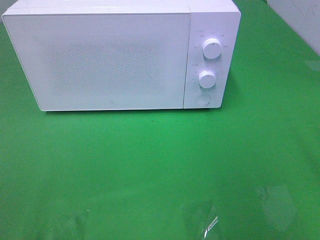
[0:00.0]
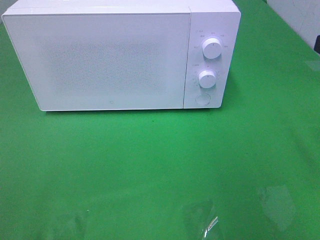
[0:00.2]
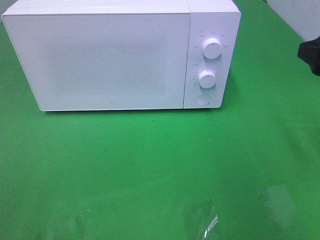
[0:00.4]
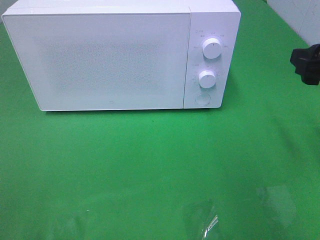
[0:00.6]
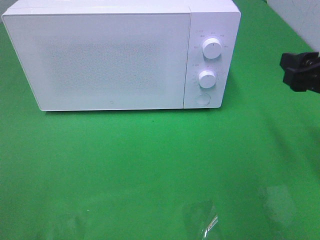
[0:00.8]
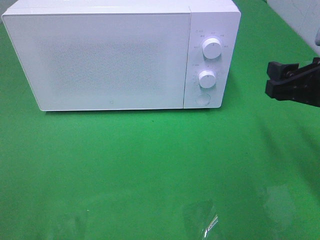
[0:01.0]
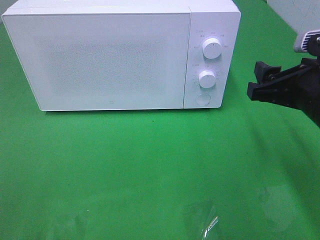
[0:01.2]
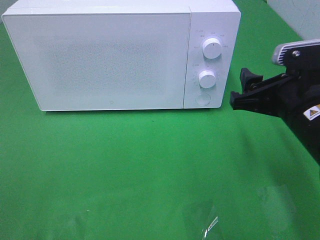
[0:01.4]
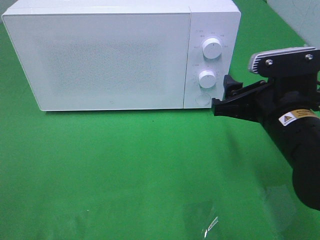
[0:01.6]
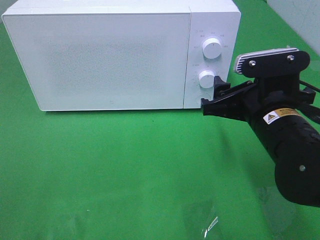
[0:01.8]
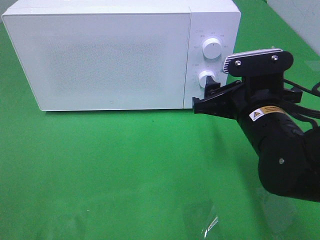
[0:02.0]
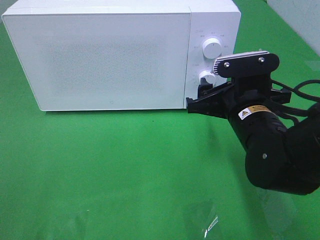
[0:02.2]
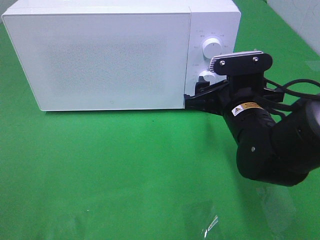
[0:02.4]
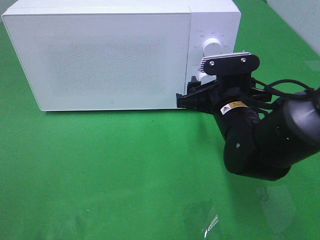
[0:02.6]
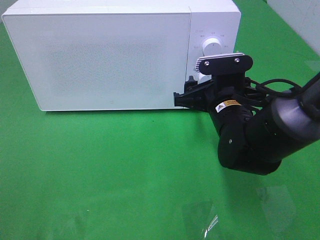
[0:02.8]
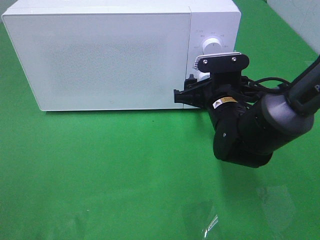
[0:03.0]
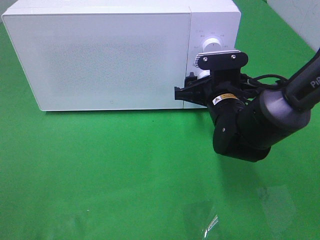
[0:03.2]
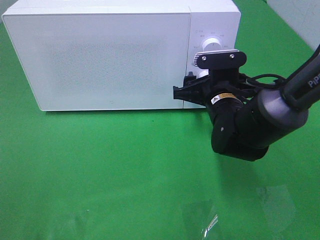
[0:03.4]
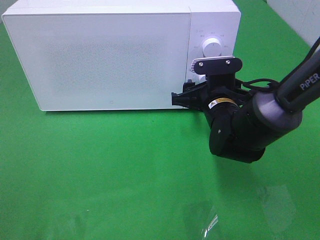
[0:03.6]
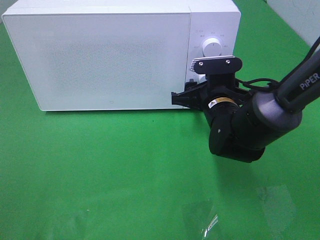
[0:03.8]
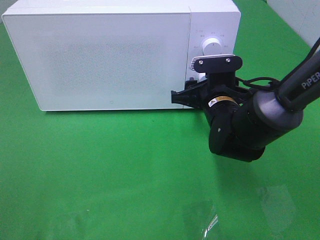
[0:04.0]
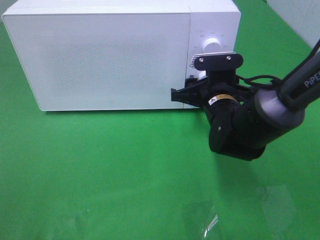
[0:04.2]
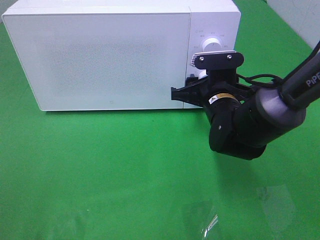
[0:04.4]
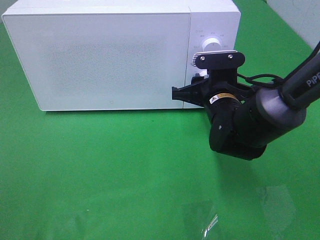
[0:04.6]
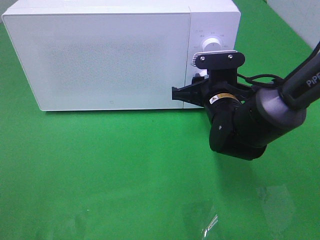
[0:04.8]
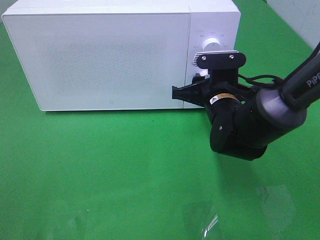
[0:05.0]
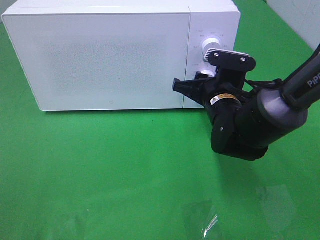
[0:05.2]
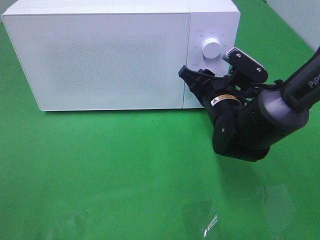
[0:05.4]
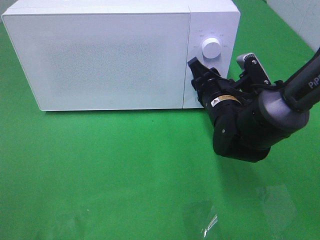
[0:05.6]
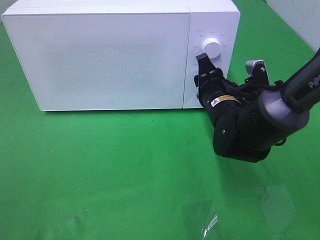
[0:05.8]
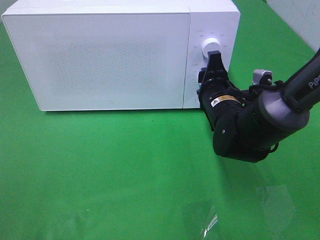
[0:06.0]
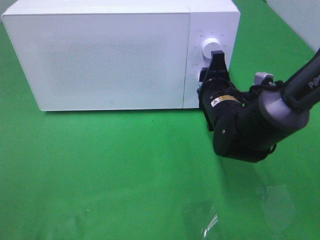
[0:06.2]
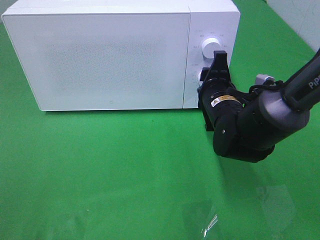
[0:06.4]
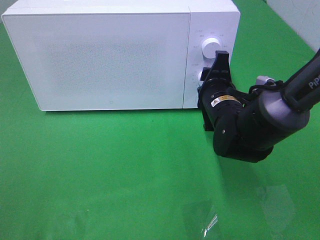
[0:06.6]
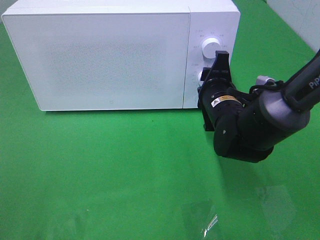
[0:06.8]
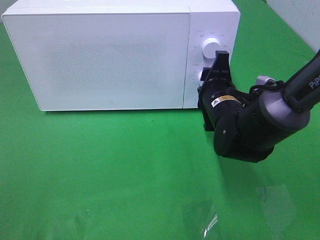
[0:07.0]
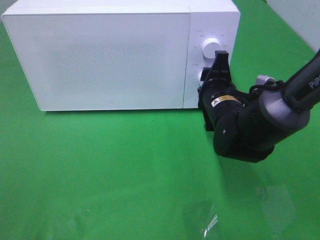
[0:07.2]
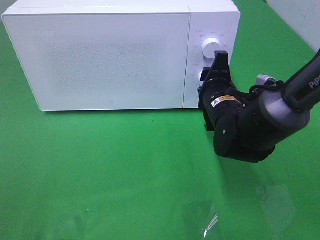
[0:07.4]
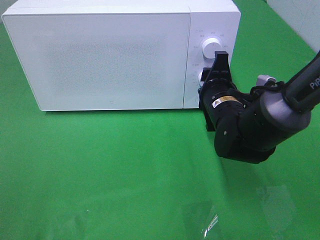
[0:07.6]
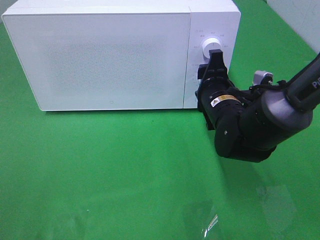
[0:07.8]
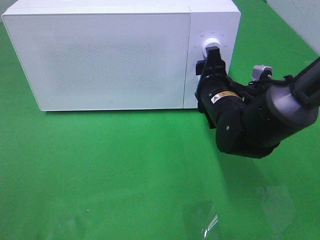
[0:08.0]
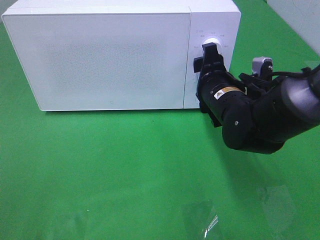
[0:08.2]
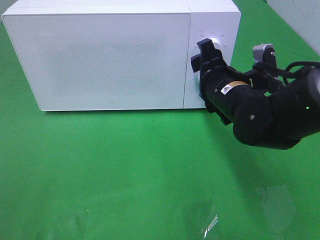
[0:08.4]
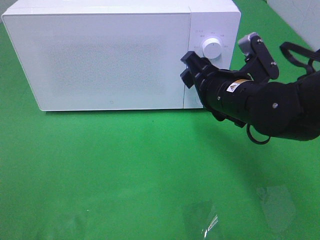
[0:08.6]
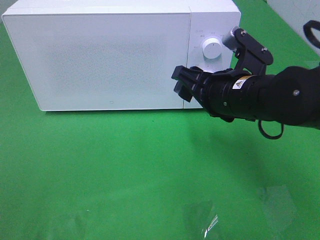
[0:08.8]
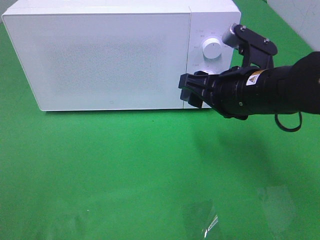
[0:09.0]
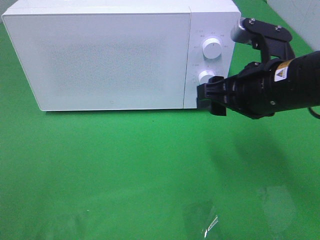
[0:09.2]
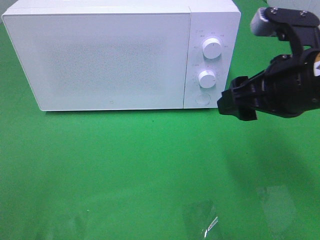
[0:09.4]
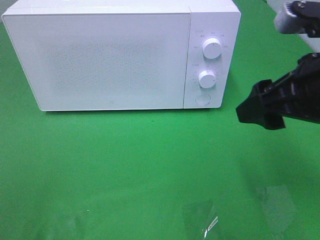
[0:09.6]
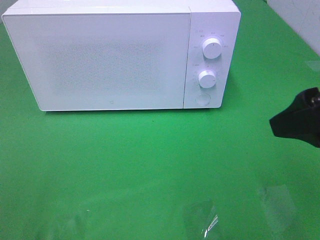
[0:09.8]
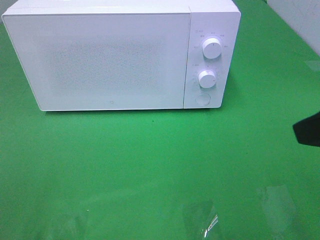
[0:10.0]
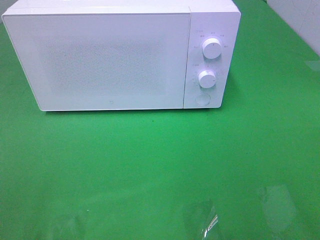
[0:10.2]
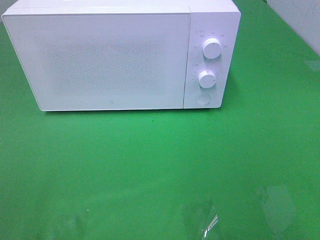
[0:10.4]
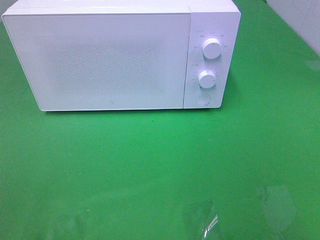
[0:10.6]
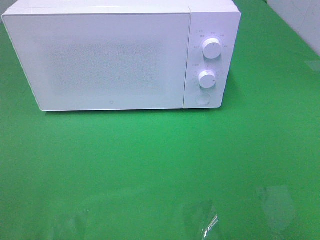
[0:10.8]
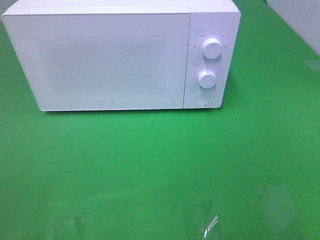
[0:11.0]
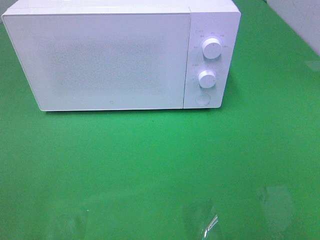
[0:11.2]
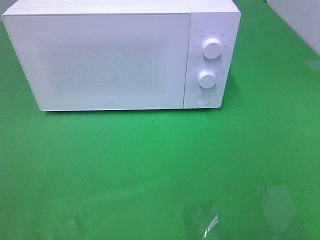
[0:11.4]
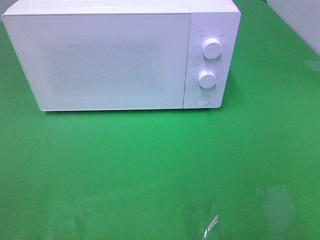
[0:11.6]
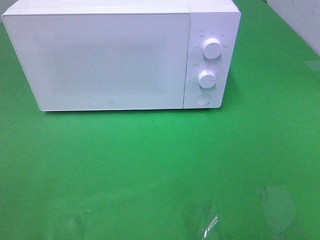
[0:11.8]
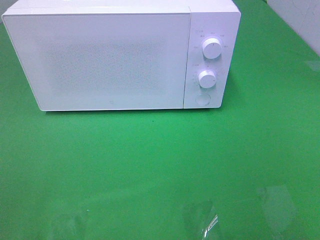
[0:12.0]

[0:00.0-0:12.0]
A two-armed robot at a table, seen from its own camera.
Task of the whole recording: Heat the burger.
Step, 0:00.0 to 0:08.2: Right hand: twist timer button.
0:00.0 to 0:01.6: The right gripper moves downward and to the left, some 15 cm.
0:01.6 to 0:03.0: The right gripper travels forward and downward by roughly 10 cm.
0:03.0 to 0:04.4: There are only small adjustments of the grippers.
0:06.0 to 0:07.6: The grippers move only a little.
0:07.6 to 0:09.0: The right gripper is displaced upward and backward by some 10 cm.
0:09.0 to 0:10.4: The right gripper moves backward, to the right and upward, approximately 30 cm.

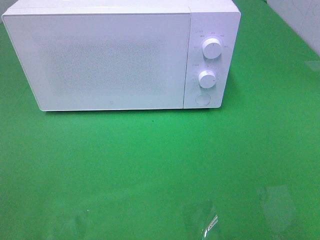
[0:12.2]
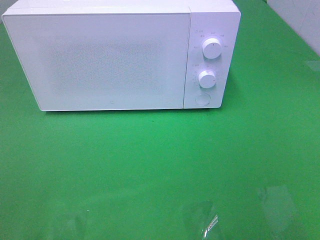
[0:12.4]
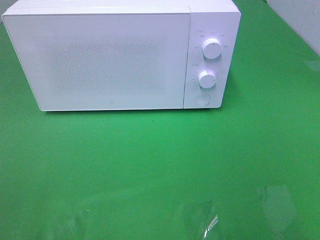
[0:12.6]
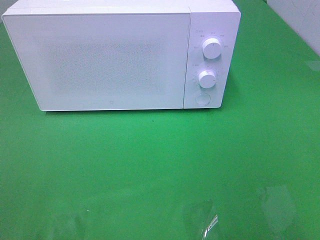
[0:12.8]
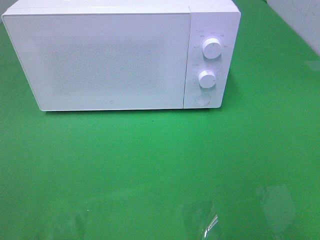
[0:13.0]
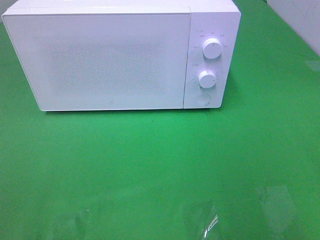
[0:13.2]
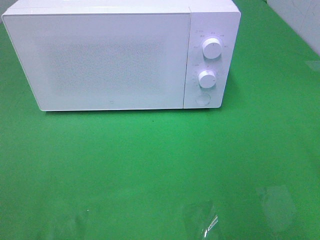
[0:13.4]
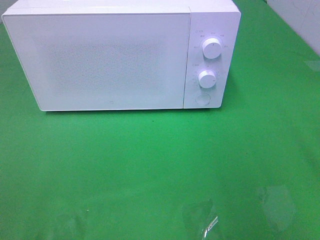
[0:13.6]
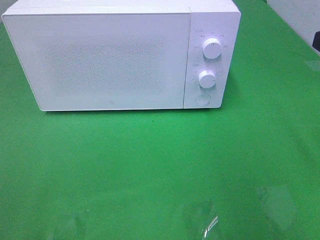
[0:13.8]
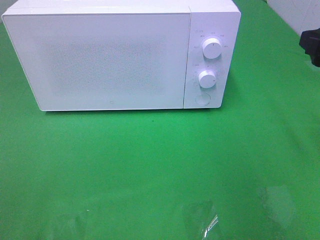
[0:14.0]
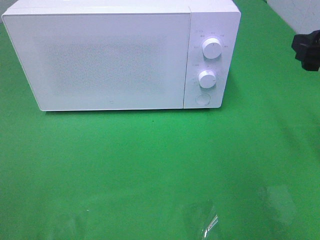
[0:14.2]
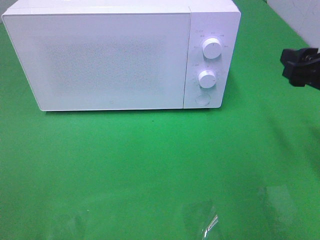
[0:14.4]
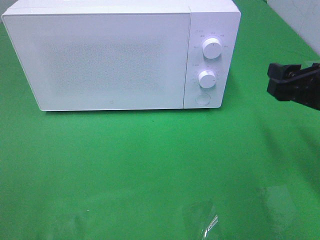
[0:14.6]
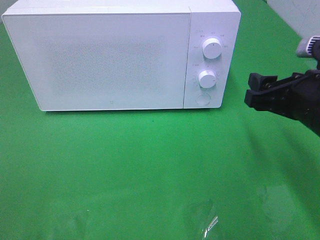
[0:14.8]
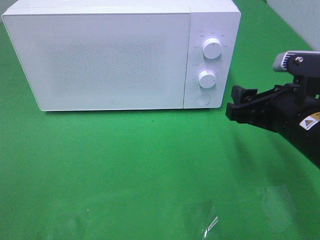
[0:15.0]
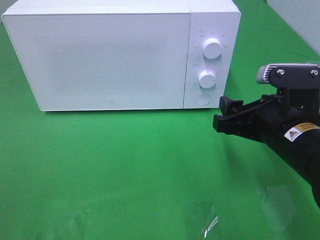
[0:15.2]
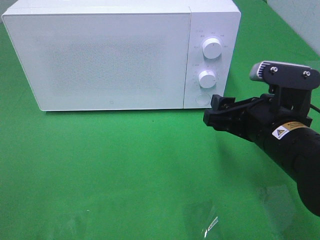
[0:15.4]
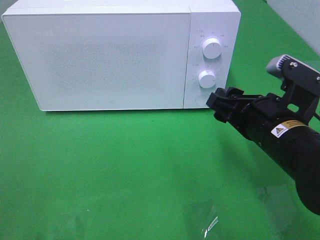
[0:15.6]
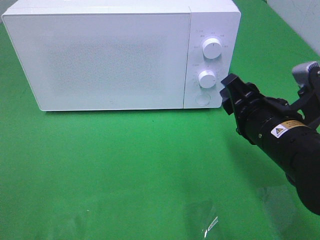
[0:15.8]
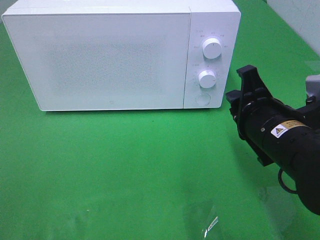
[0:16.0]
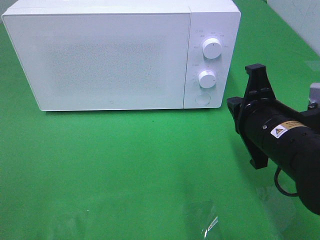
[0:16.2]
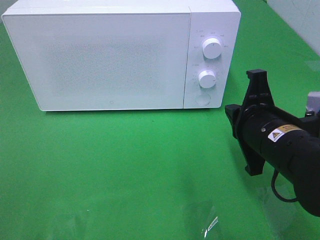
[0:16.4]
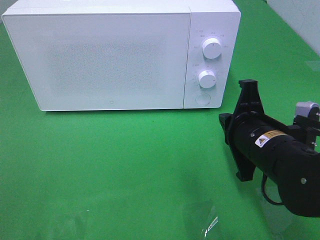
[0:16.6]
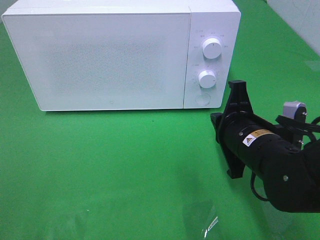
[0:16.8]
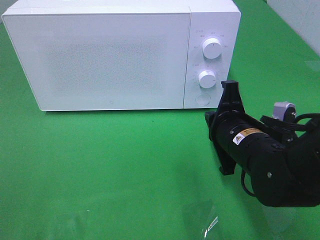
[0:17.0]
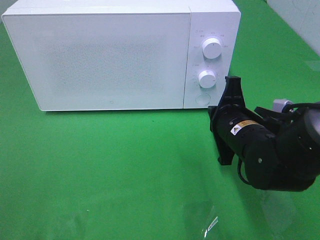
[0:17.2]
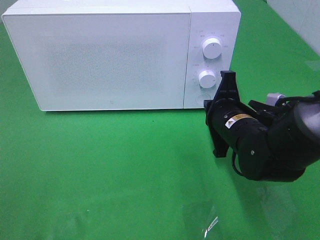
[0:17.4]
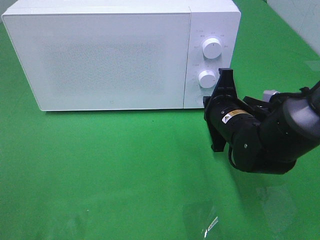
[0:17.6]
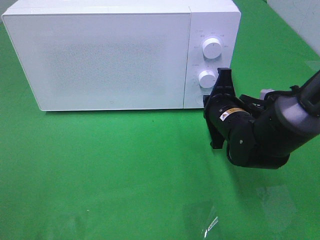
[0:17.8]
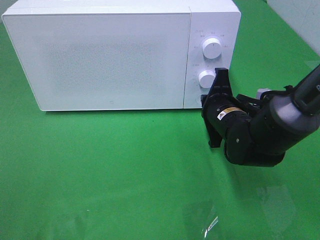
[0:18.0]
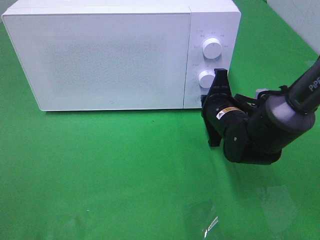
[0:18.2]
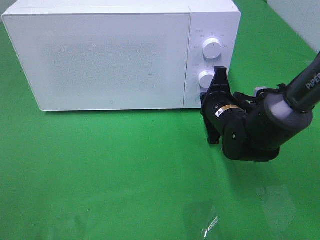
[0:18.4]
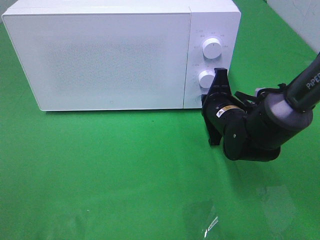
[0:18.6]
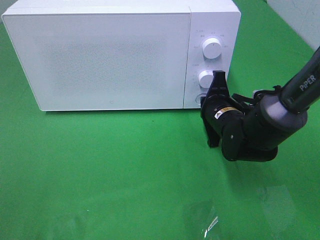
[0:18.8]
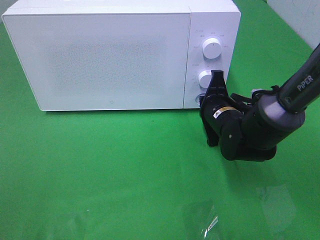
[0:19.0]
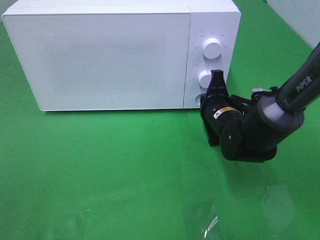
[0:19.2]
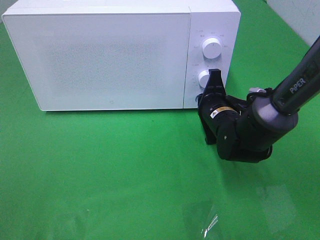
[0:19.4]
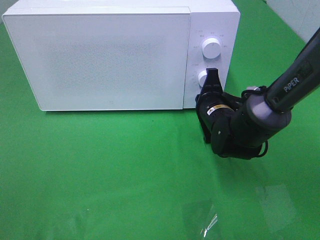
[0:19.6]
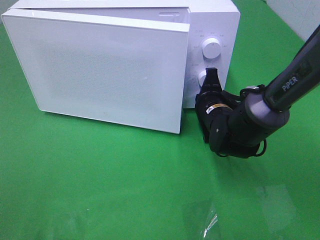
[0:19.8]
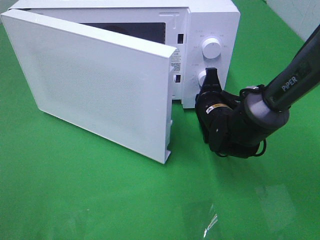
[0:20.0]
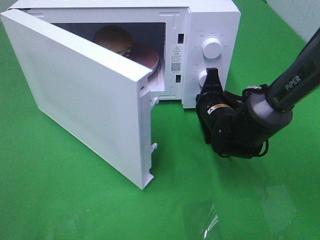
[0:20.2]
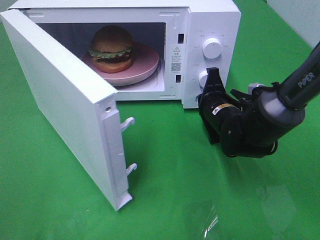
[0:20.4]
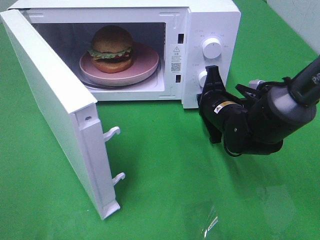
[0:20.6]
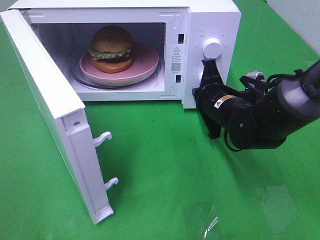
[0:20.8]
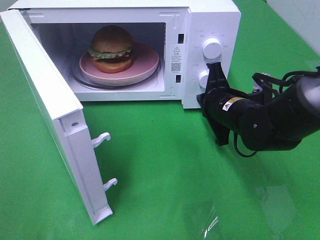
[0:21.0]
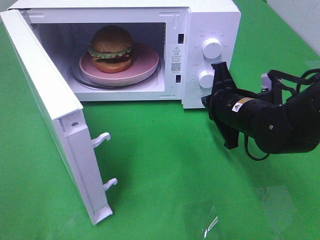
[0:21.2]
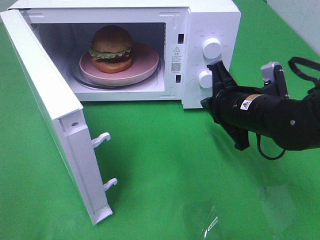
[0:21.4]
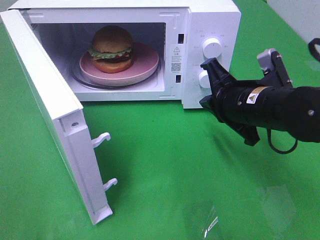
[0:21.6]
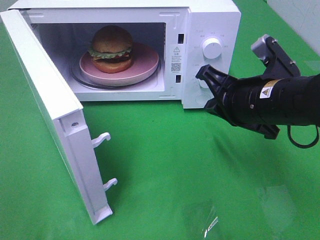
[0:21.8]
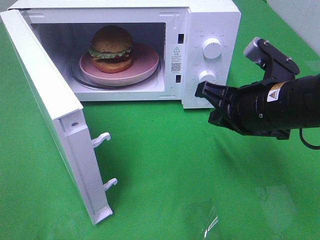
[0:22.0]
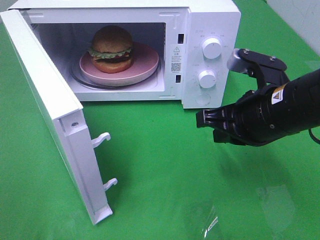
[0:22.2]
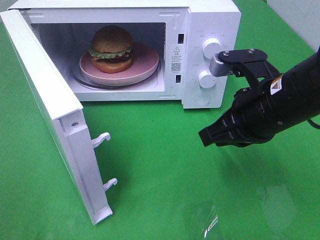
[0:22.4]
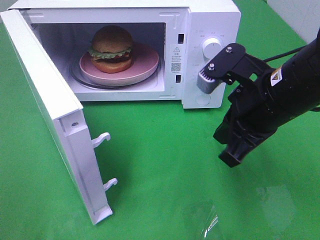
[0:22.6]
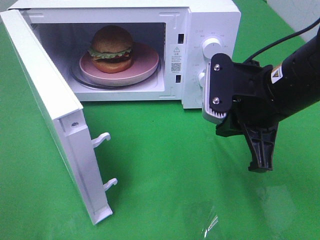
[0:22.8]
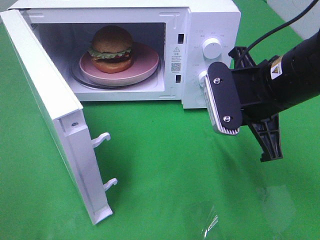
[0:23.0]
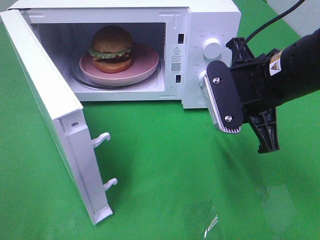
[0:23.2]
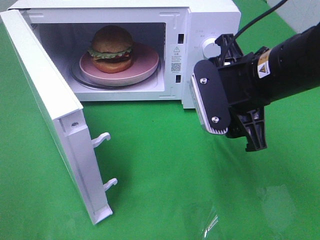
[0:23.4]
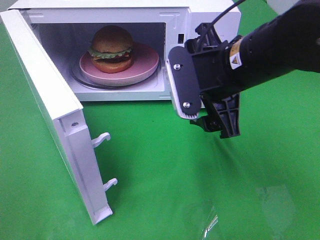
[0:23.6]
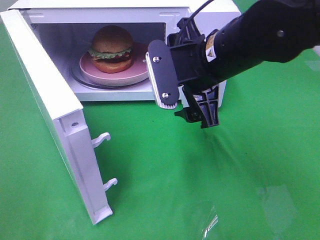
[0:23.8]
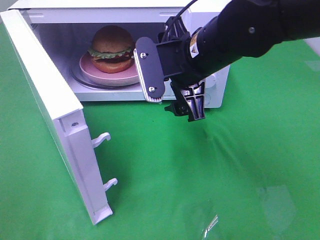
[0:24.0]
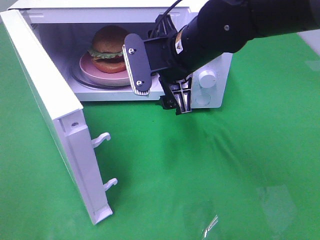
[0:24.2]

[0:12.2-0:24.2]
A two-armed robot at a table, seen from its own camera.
Task of the whole recording: Heat the burger.
Step, 0:12.2 to 0:20.8: Right hand: press the switch.
0:13.8 to 0:15.2: The right gripper moves downward and to the left, roughly 15 cm.
0:15.2 to 0:16.6: The right gripper closes.
0:16.6 to 0:18.2: The right gripper heads forward and downward, covering about 10 cm.
0:18.2 to 0:19.8: The grippers make only small movements.
0:19.8 to 0:21.2: The right gripper travels backward and upward by roughly 10 cm.
0:21.2 to 0:22.6: The right gripper shifts about 10 cm upward and backward.
0:22.6 to 0:24.2: The right gripper travels to the left and forward by approximately 15 cm, and opens up.
